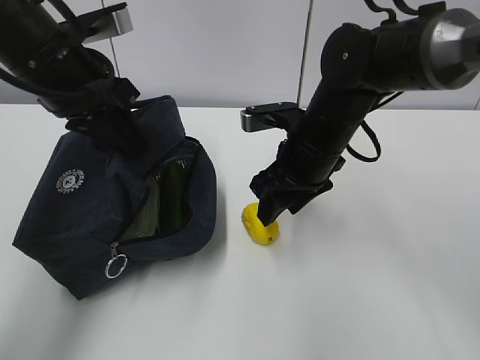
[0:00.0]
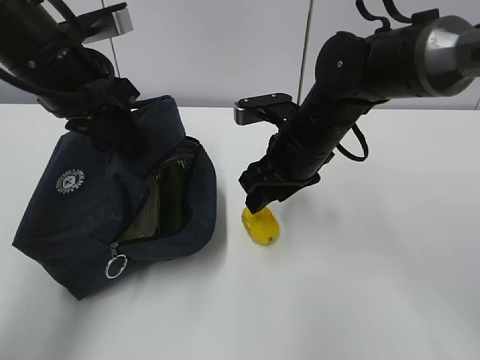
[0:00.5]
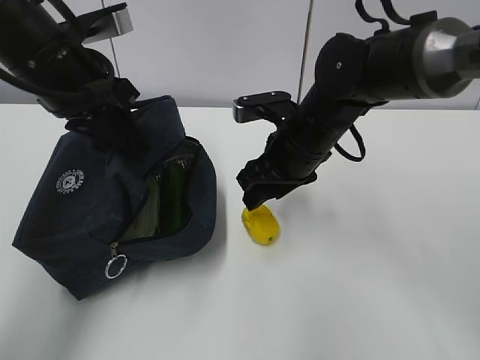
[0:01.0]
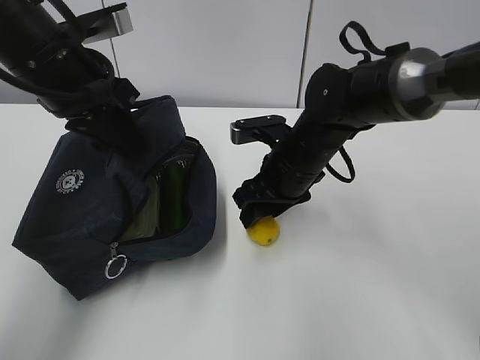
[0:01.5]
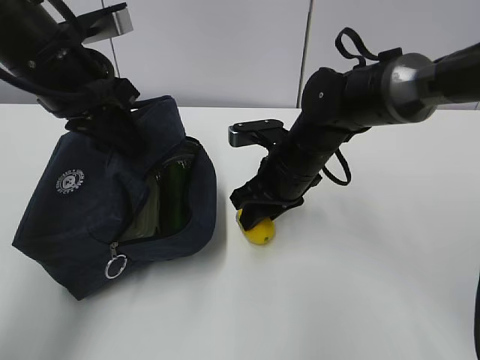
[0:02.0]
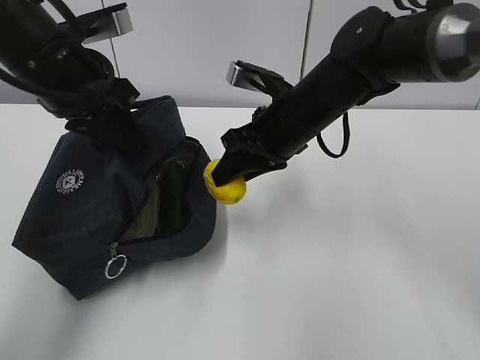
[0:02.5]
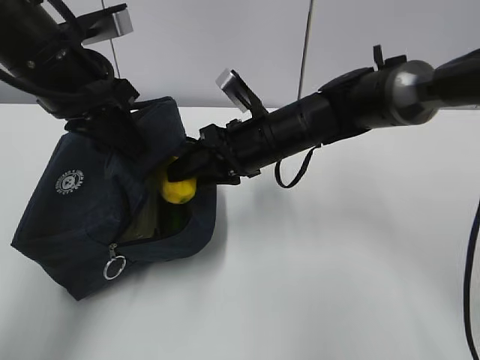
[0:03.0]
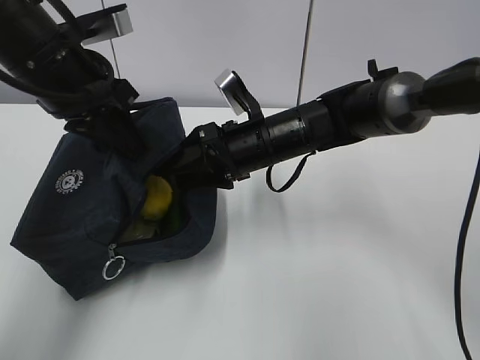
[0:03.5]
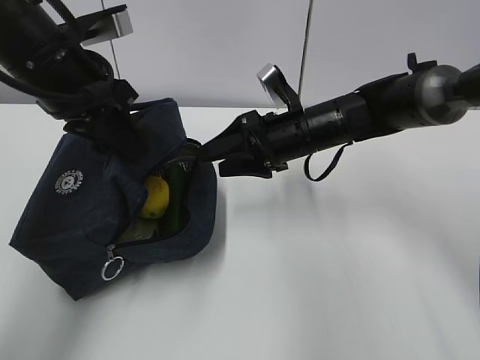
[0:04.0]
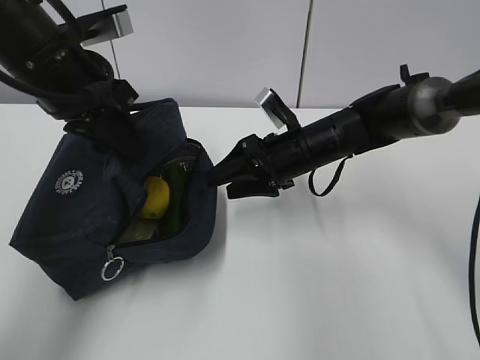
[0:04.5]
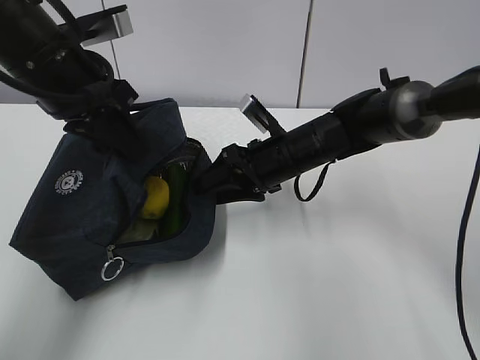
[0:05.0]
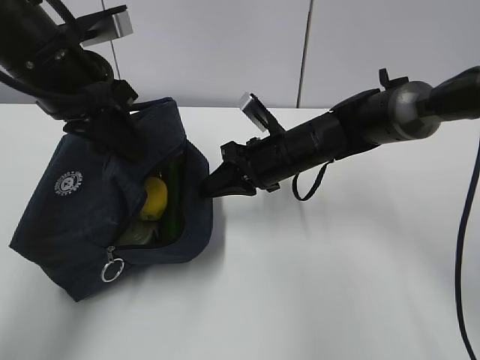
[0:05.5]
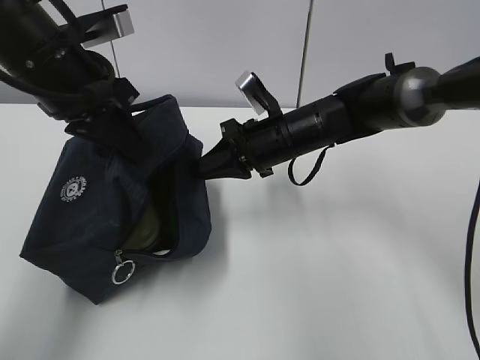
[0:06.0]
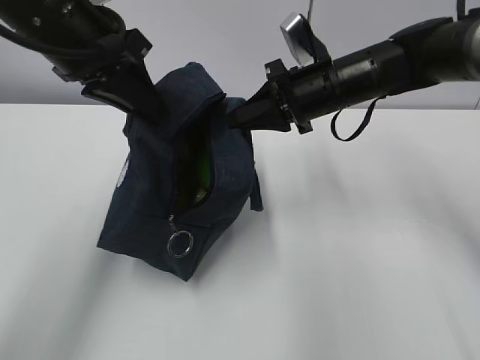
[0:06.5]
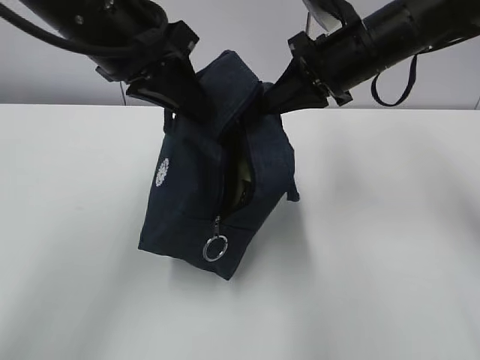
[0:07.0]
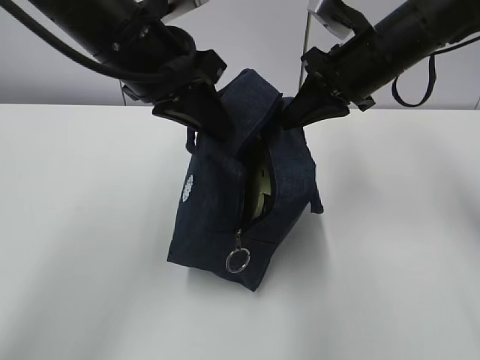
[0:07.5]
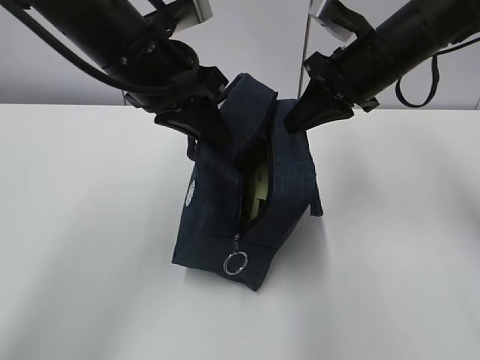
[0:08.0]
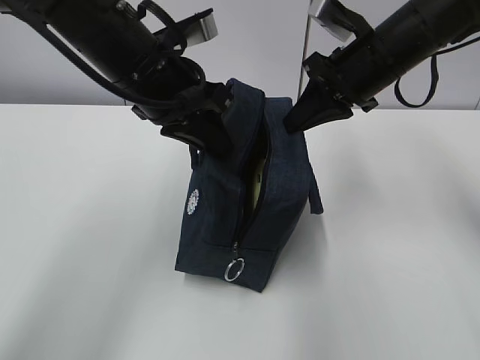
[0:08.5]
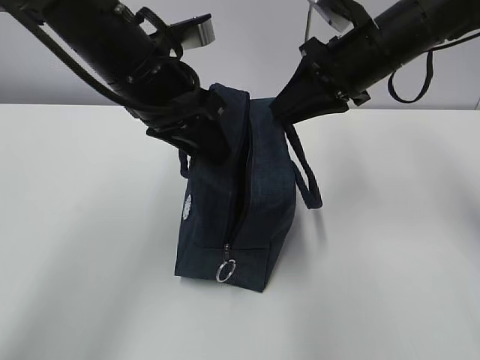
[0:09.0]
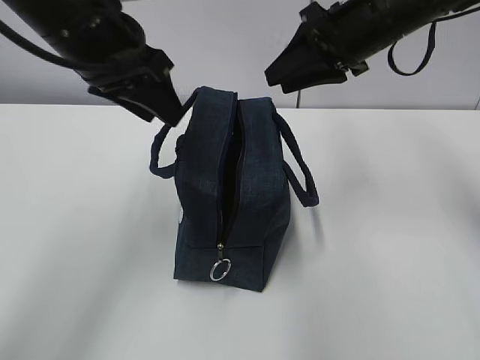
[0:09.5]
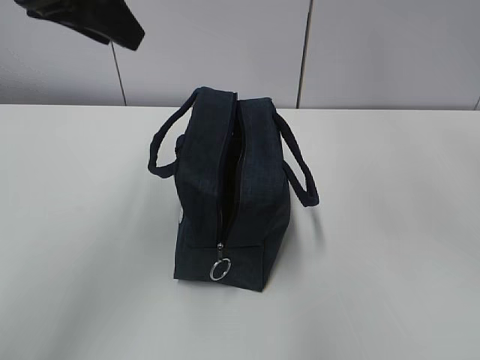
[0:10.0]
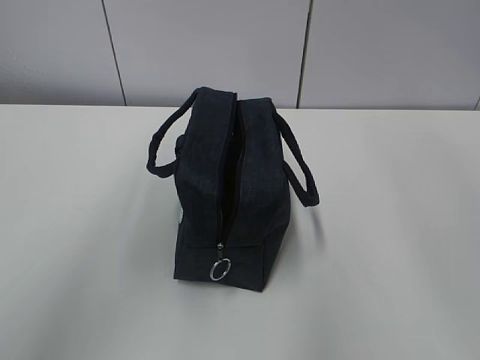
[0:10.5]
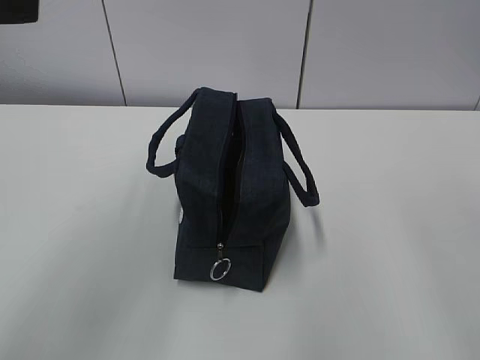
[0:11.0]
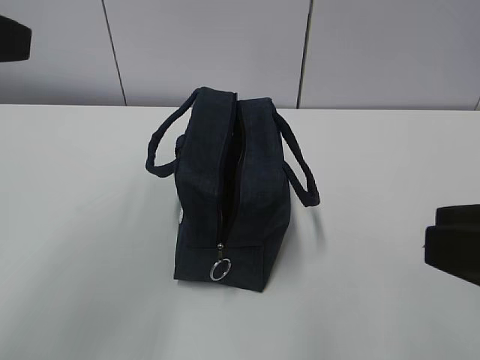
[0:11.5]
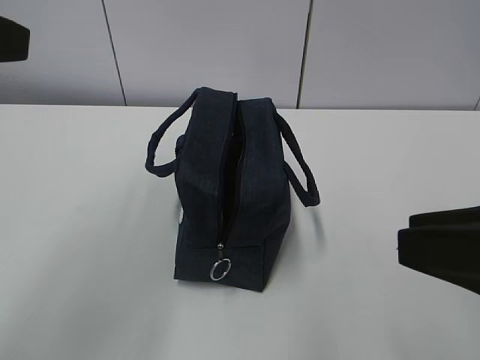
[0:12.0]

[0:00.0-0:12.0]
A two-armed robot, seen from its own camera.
Step, 0:00.0 to 0:02.5: Move the lunch bag to the right.
0:00.0 to 0:02.0: There are only small adjustments of the grippers.
0:02.0 to 0:04.0: The right gripper opens.
0:04.0 to 0:06.0: The right gripper closes its fingers.
0:06.0 to 0:08.0: The left gripper heads to the right, covering approximately 5 cm; the right gripper moves upward and to the right, approximately 15 cm.
0:08.0 to 0:10.0: The left gripper heads upward and to the left, covering approximately 15 cm, and opens. The right gripper goes some 20 cm upward and backward, and opens.
0:10.0 to 0:12.0: The right gripper is displaced backward and downward by roughly 25 cm. Meanwhile the left gripper moves backward and to the left, about 15 cm.

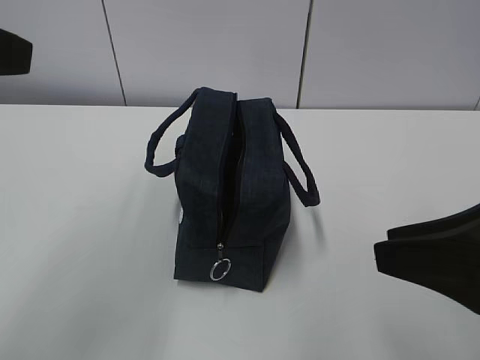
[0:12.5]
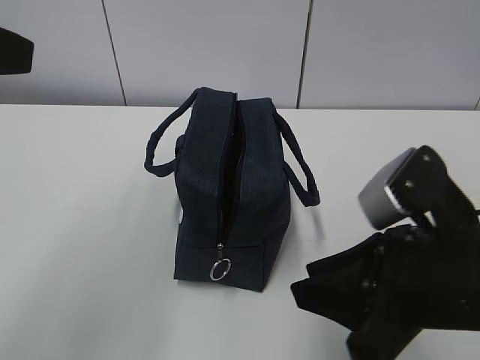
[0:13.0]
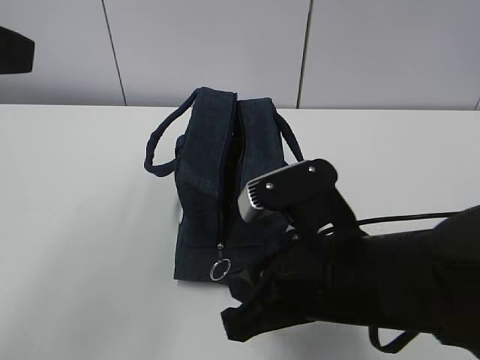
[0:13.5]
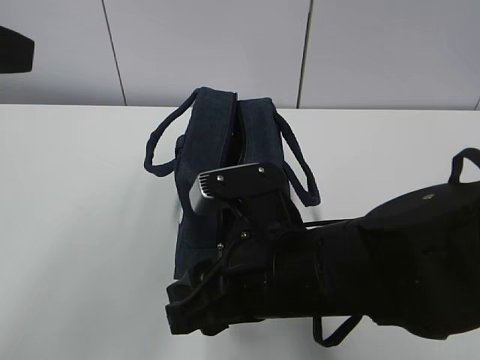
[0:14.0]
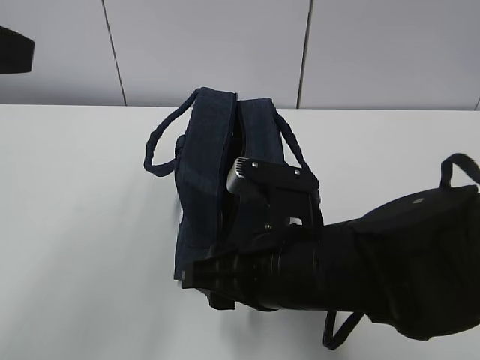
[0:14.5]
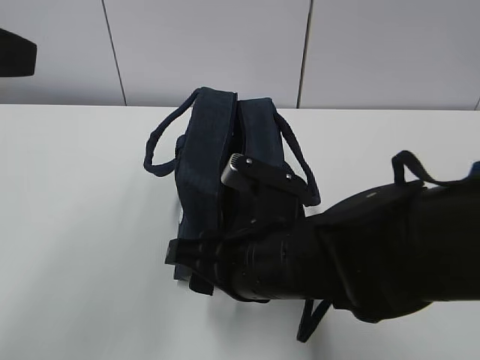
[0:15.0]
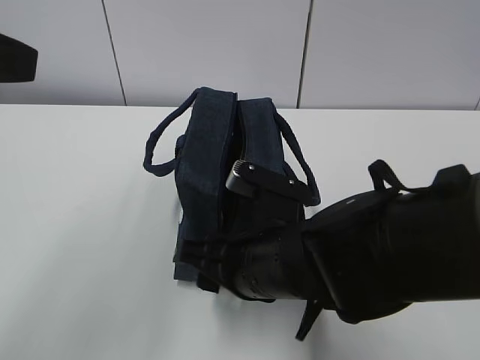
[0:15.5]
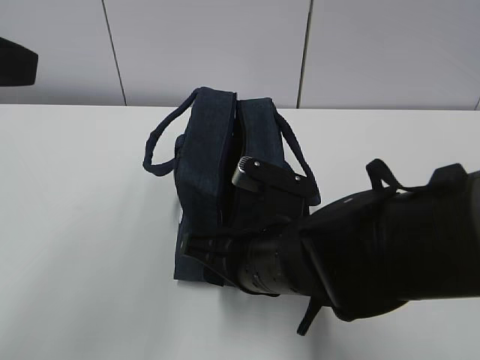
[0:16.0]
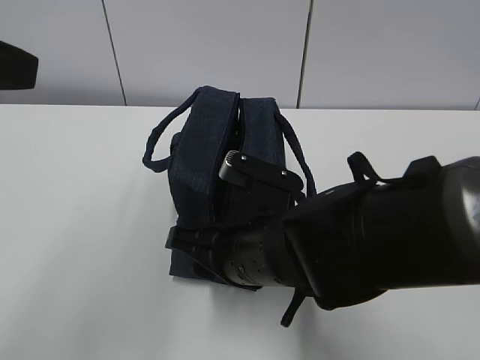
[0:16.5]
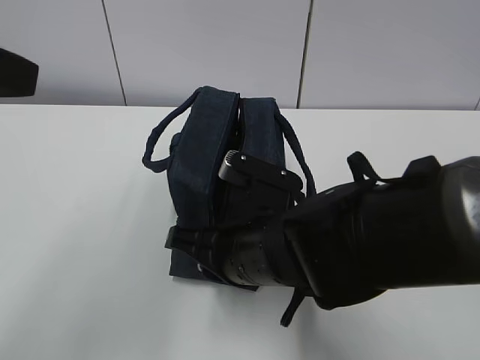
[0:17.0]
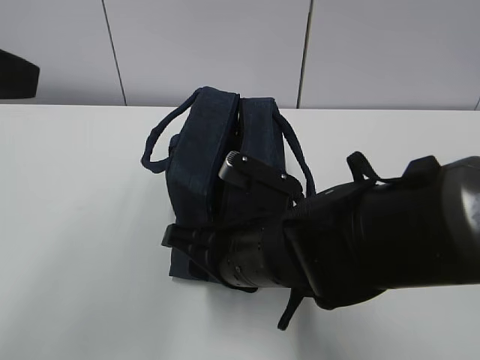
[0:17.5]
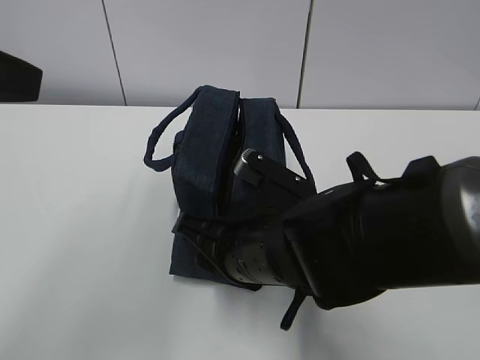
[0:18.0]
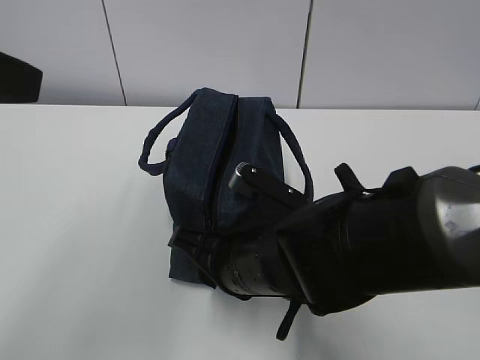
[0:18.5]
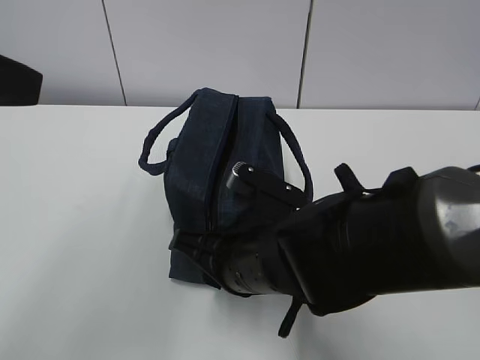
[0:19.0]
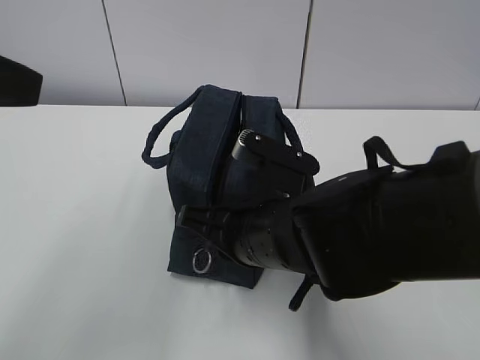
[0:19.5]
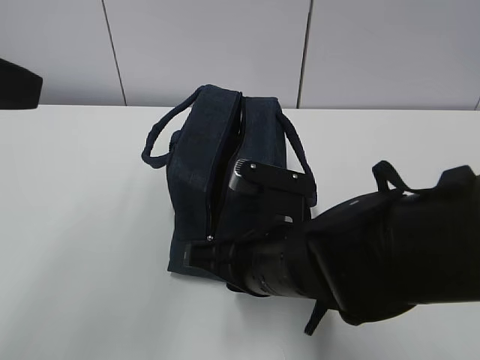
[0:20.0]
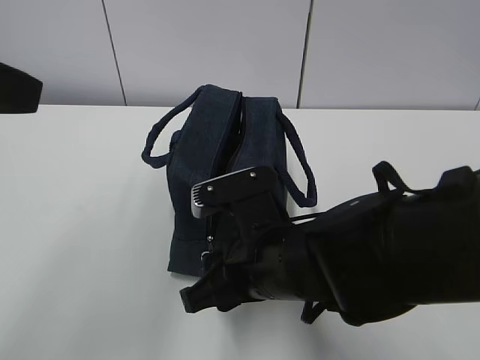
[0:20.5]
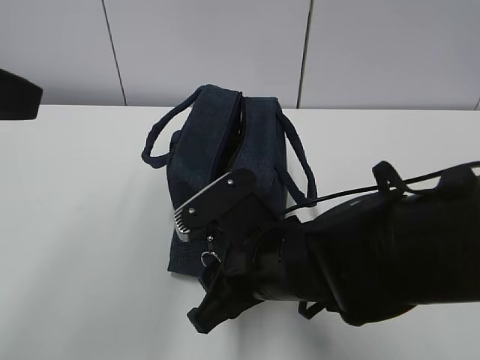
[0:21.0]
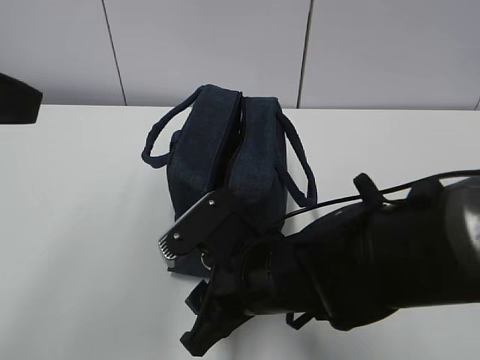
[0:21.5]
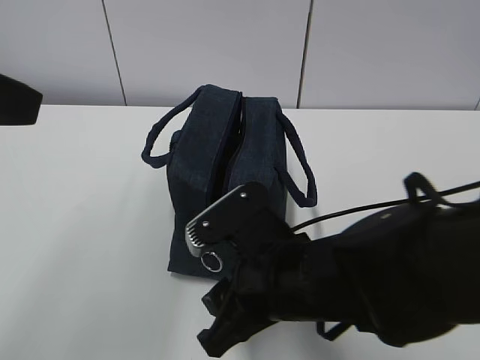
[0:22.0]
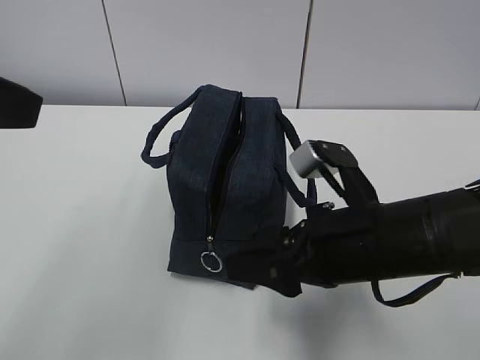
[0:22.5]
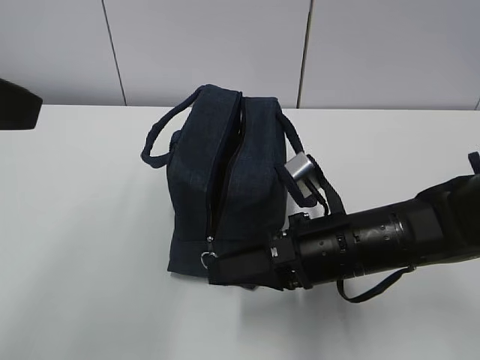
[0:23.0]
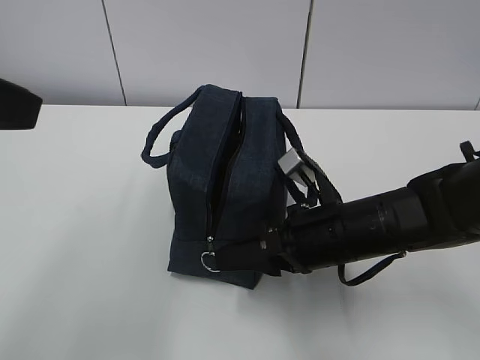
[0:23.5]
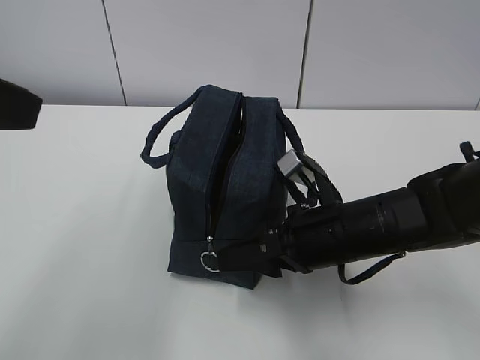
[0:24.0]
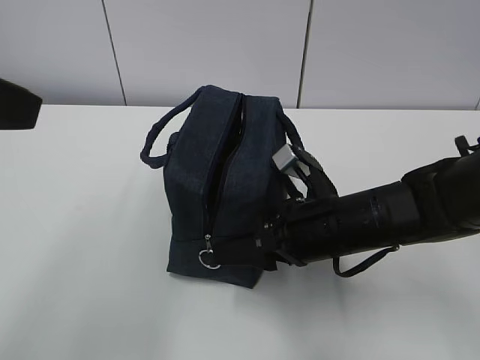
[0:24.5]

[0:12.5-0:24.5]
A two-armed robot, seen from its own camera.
0:12.5 to 0:14.5: The right gripper moves to the left and downward, approximately 20 cm.
0:14.5 to 0:16.5: The grippers stay close to where they were, moving slightly.
0:16.5 to 0:18.5: The grippers make only small movements.
0:20.5 to 0:22.5: The right gripper shifts about 10 cm to the right.
0:22.5 to 0:24.5: The right gripper shifts about 10 cm forward and downward.

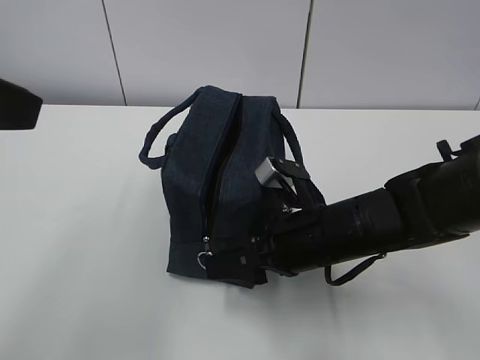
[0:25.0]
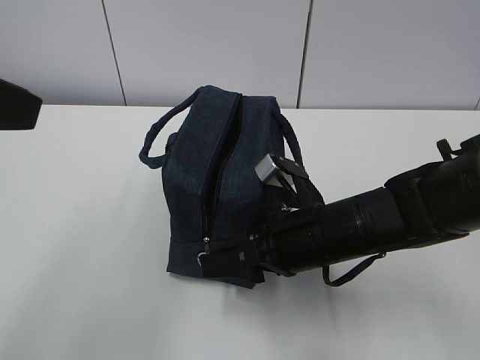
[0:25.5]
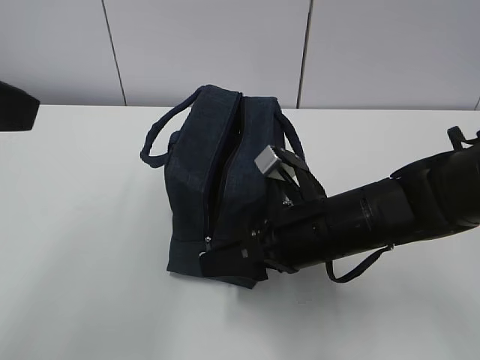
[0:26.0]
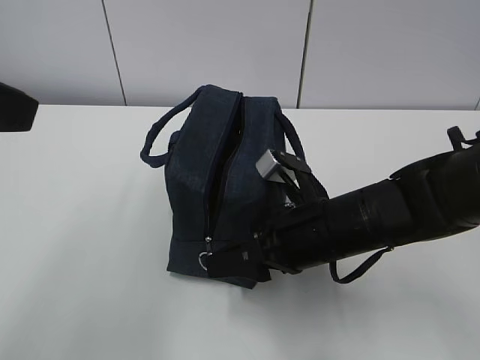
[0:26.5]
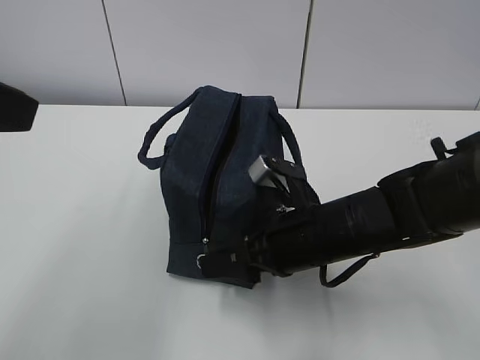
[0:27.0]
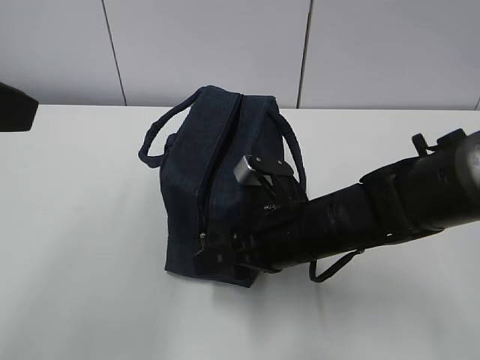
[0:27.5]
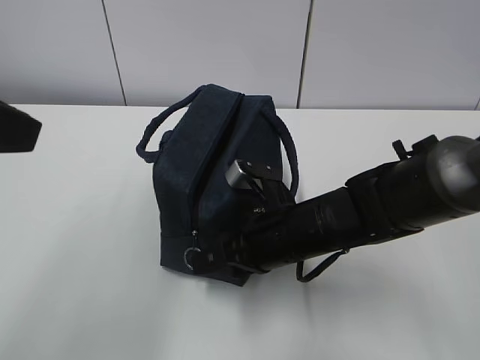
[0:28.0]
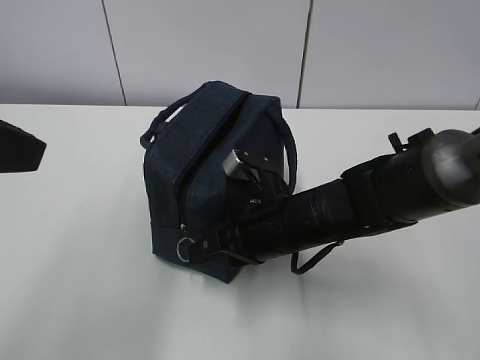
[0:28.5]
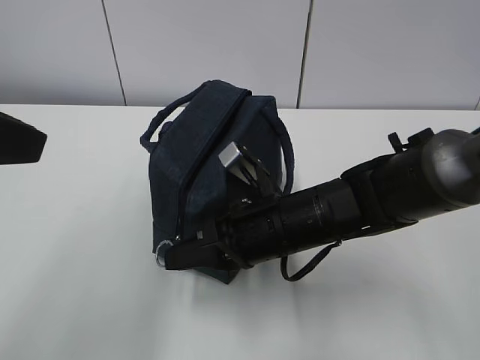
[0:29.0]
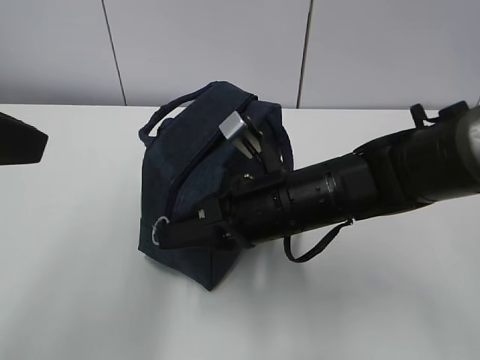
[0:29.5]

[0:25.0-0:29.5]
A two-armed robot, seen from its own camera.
0:25.0 to 0:27.0: The grippers make only small movements.
0:27.0 to 0:29.5: The right gripper ends up roughly 5 cm from where it was, and closes up.
